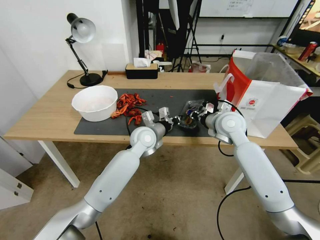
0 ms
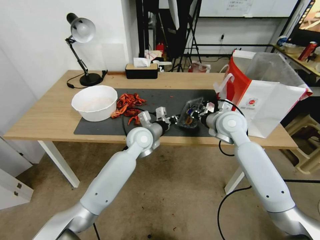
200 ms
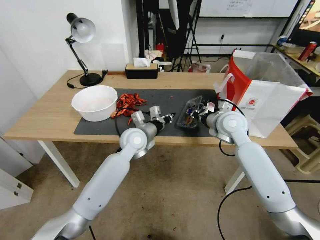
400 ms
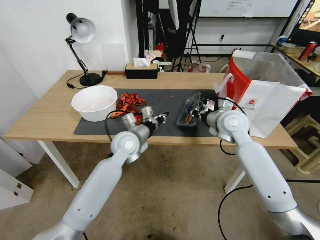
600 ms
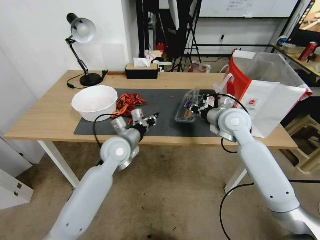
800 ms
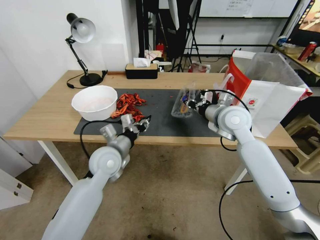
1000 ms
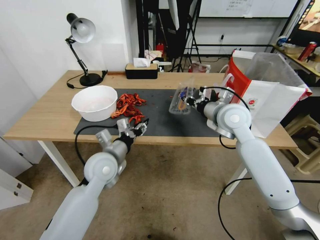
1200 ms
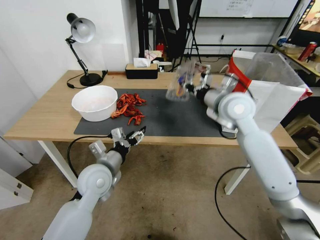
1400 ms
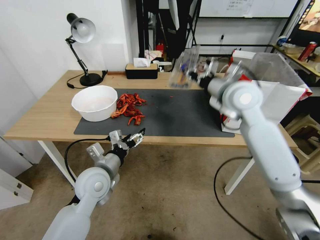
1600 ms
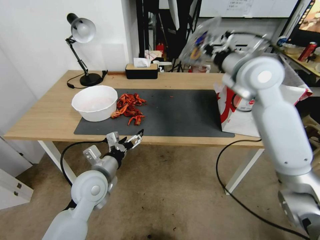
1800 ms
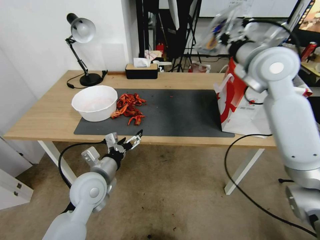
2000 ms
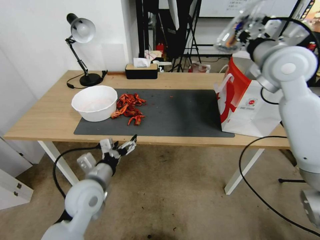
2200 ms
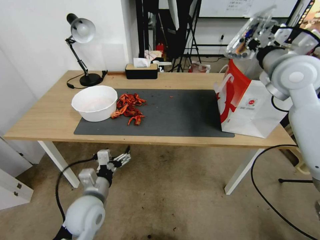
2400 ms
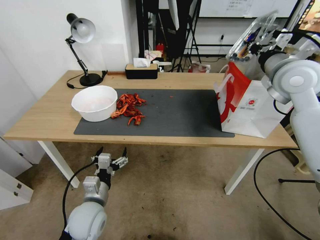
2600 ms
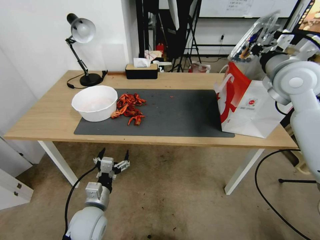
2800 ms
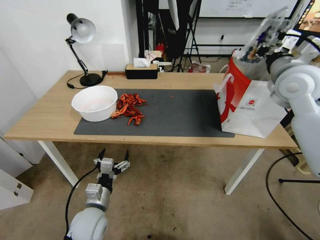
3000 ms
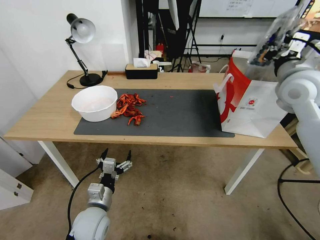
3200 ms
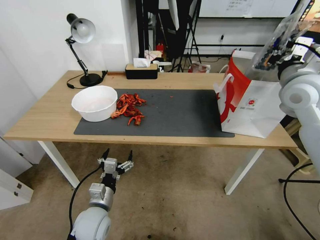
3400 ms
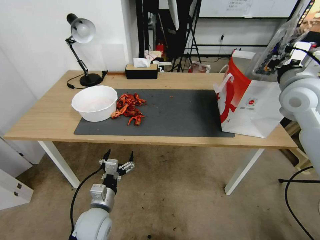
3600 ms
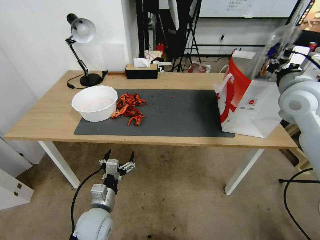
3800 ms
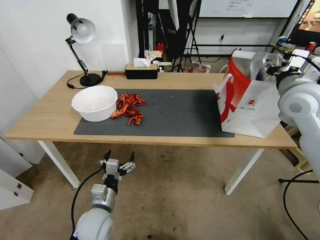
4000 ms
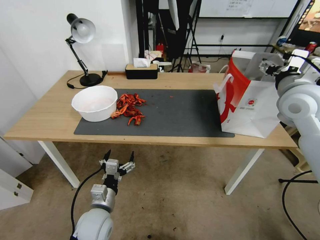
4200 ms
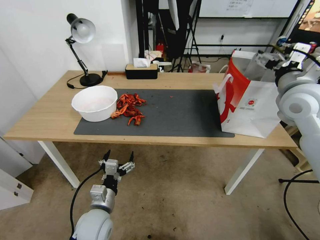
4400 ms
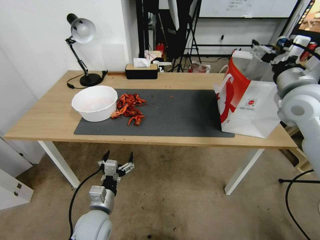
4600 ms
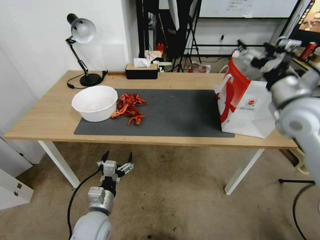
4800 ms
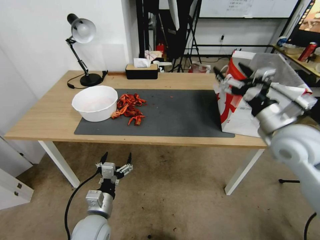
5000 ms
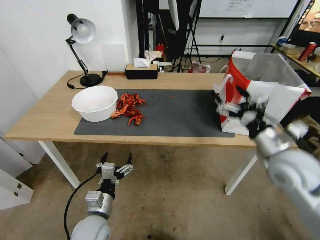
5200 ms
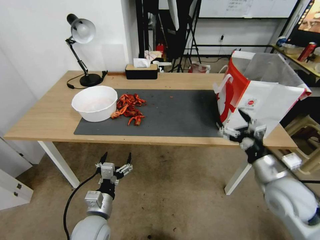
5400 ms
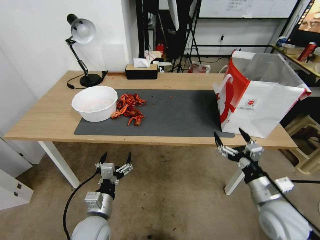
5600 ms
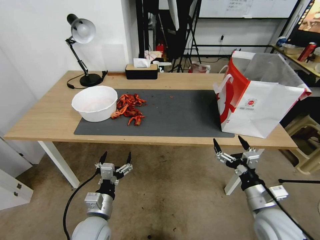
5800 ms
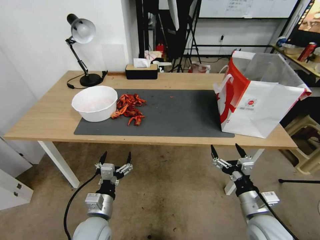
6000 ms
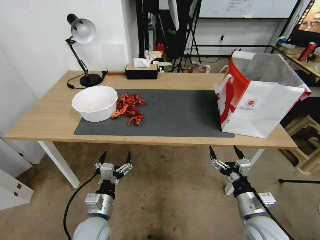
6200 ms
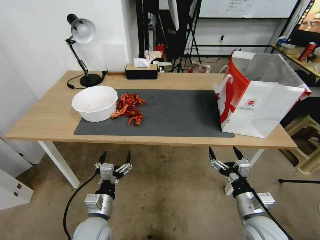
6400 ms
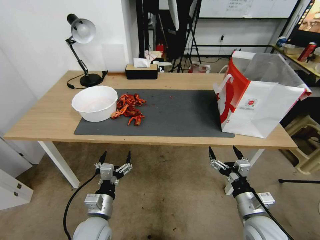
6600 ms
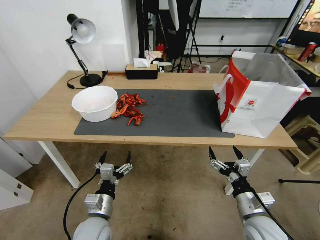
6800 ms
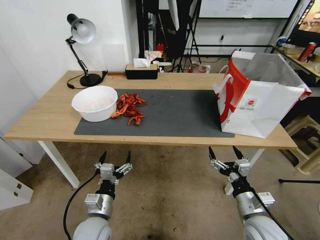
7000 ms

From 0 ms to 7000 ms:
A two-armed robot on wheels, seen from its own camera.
Task of the whole recording: Close the takeout container lid, then place the container into the takeout bag.
From 0 ms to 1400 ms: The right gripper heads upward, covering some 10 cm. Meanwhile the left gripper is displaced backward and to the left by approximately 20 cm, and opens.
From 1400 ms to 2800 ms: The left gripper is displaced downward and backward by roughly 15 cm, and opens its fingers. The right gripper goes some 15 cm to the right and upward.
From 2800 ms to 4200 ms: The right gripper moves approximately 5 cm, and opens.
From 4200 ms to 5600 ms: The right gripper goes about 30 cm downward and backward.
From 5600 ms to 7000 ms: The right gripper travels downward by about 5 cm.

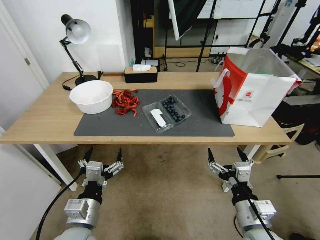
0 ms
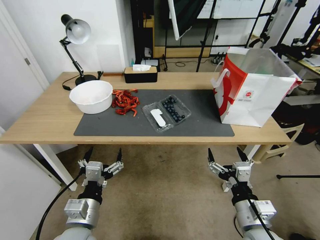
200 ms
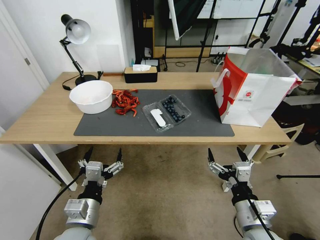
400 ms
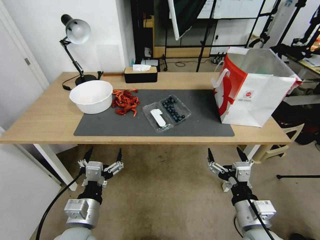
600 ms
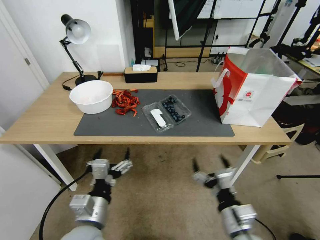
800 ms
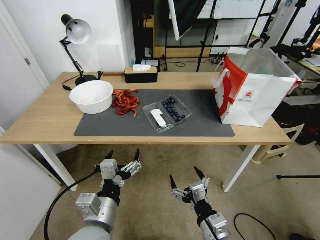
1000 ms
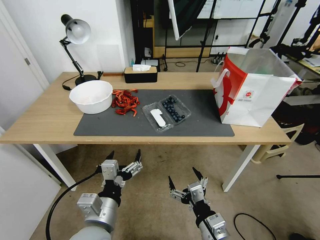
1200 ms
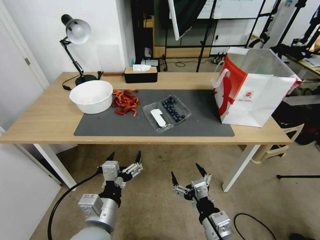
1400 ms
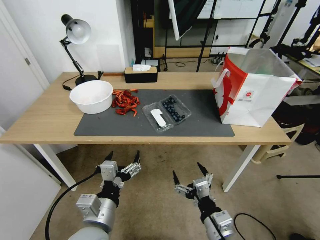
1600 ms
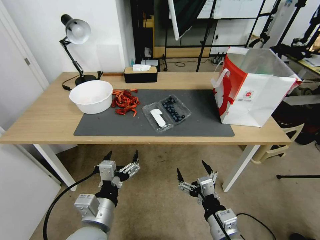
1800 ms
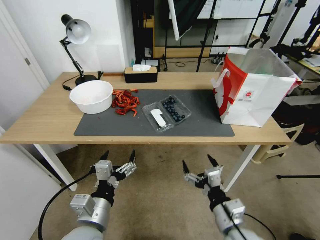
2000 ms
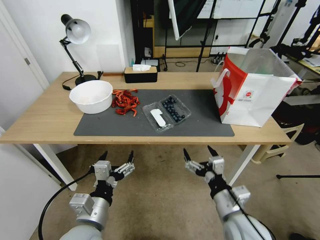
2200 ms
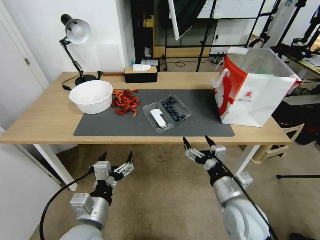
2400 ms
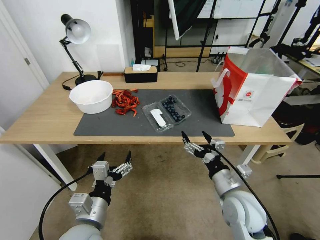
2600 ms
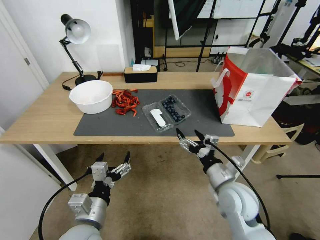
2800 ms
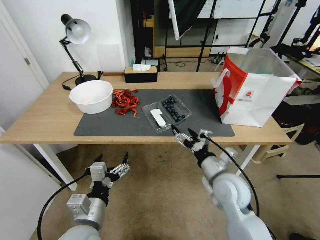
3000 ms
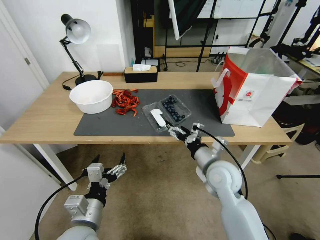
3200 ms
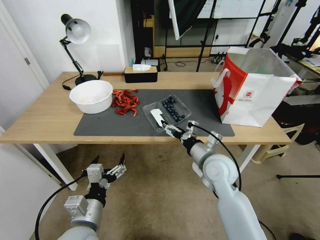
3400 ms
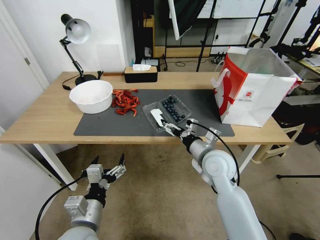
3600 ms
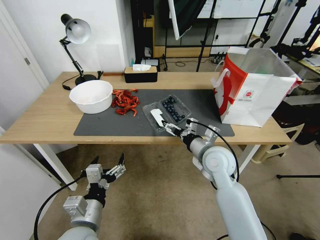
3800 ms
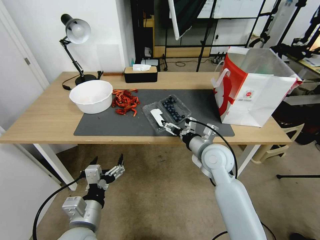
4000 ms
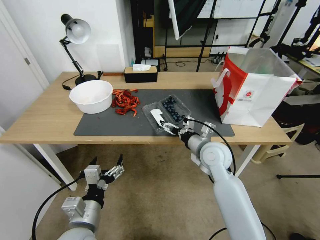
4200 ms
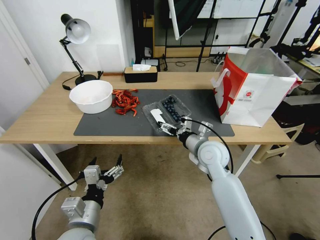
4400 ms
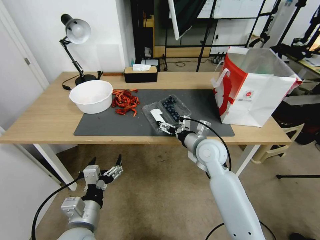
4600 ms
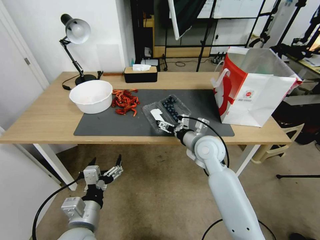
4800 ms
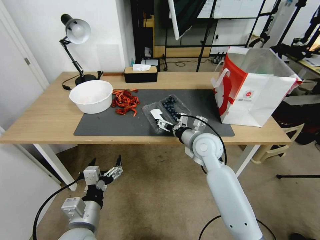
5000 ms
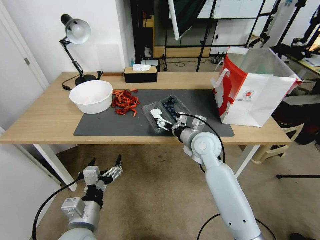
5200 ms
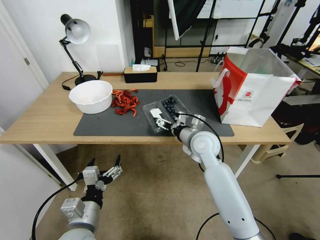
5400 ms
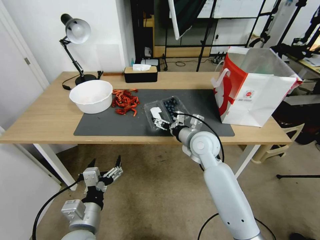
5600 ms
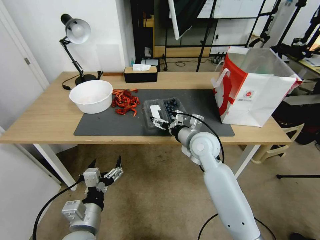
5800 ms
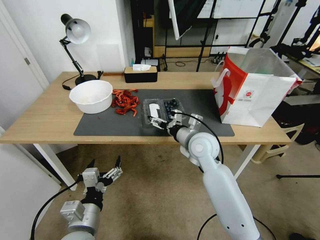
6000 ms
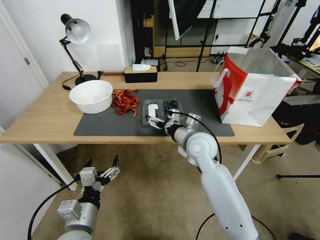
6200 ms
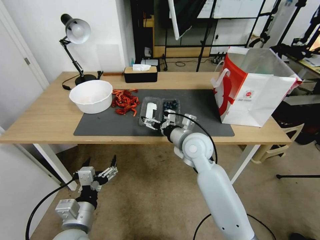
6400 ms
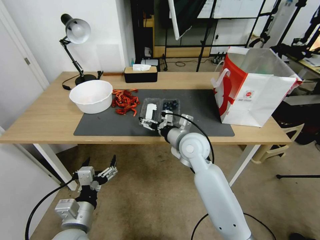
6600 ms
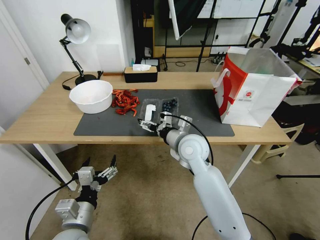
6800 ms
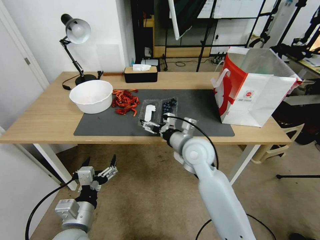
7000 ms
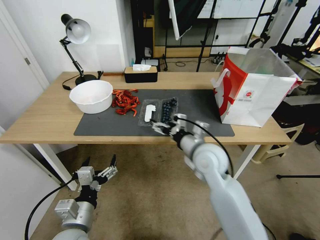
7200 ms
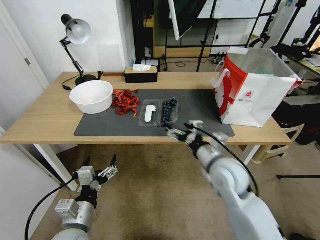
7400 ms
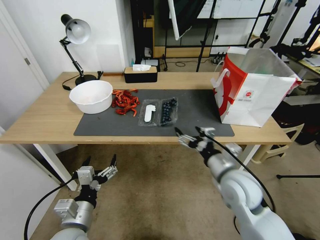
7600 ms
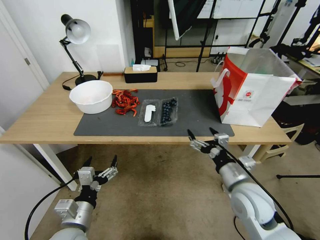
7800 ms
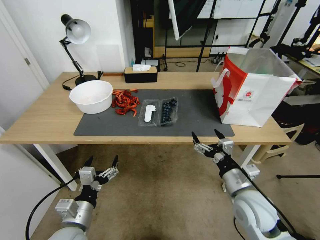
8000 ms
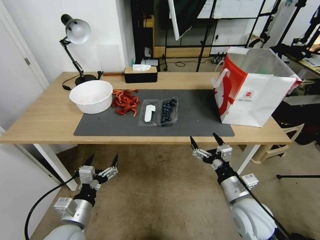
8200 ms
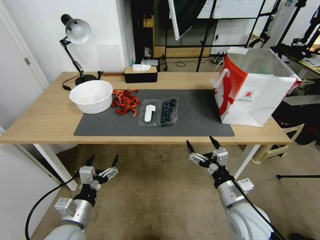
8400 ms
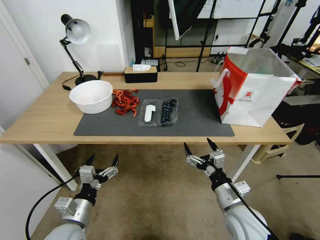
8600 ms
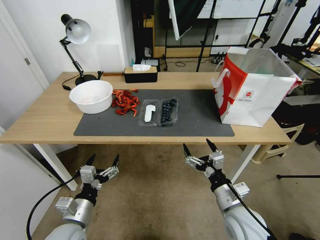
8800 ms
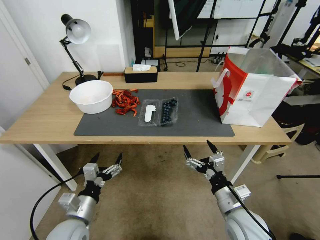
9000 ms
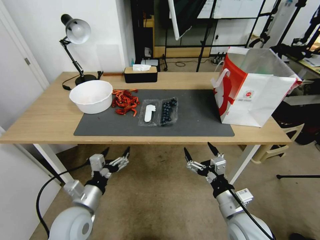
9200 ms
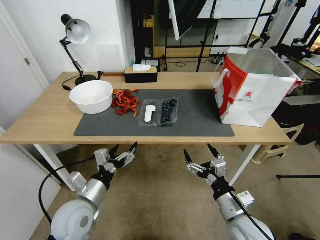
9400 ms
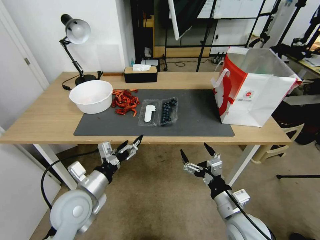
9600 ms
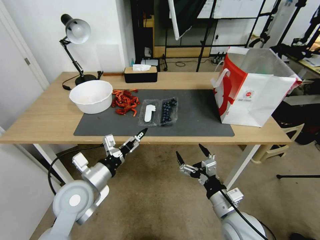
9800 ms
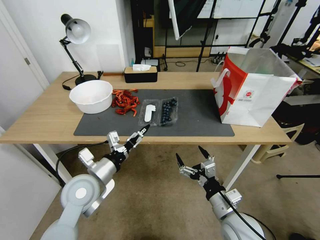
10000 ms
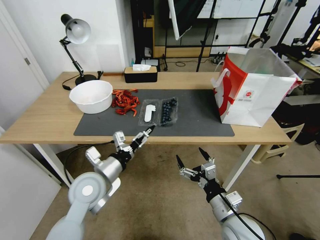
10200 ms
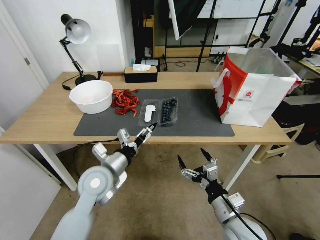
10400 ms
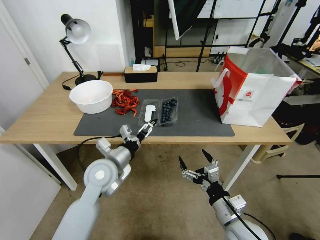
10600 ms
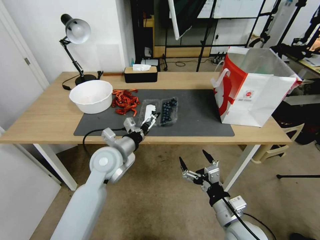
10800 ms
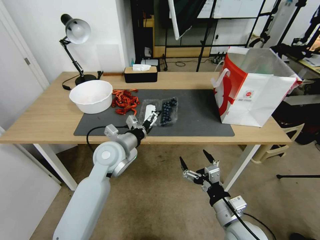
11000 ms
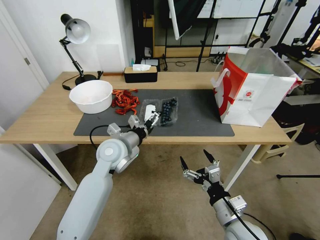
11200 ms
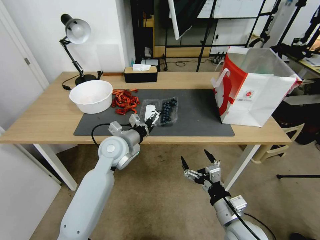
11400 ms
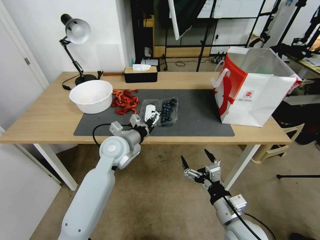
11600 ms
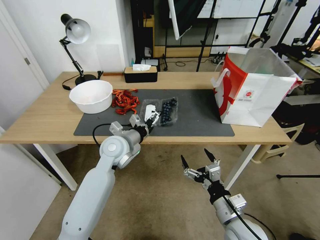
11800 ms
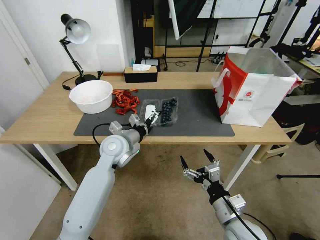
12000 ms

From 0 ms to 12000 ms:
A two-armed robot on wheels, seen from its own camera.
Task of the whole recording: Close the takeout container lid, then place the container into the takeout bag.
From 1600 ms to 3000 ms: The right gripper goes some 15 cm forward.
From 3000 ms to 4400 ms: The right gripper shifts roughly 10 cm forward.
From 4400 ms to 6000 ms: The grippers make only small movements.
From 6000 ms to 7600 ms: The right gripper moves backward and to the right, about 15 cm.
From 7600 ms to 9000 ms: The right gripper goes about 10 cm backward and downward.
From 9000 ms to 10400 ms: The left gripper goes some 15 cm forward, upward and to the right.
From 10400 ms to 12000 ms: The left gripper travels forward by roughly 10 cm.

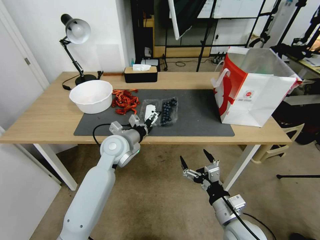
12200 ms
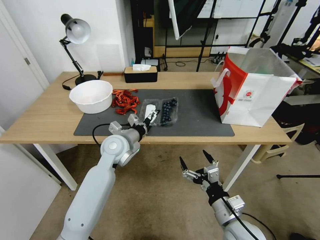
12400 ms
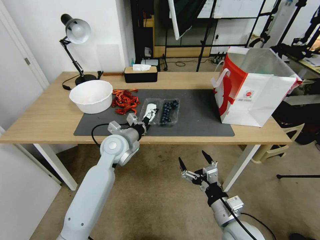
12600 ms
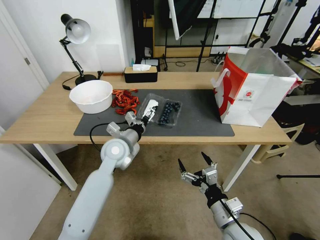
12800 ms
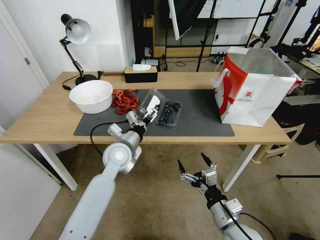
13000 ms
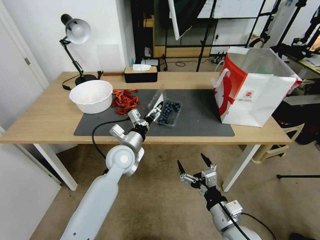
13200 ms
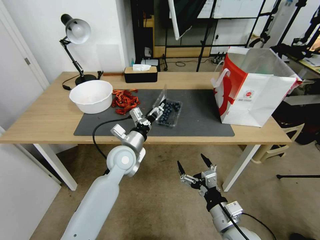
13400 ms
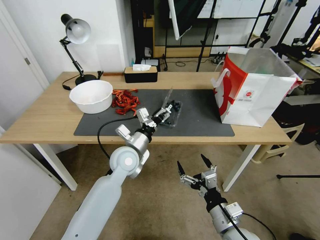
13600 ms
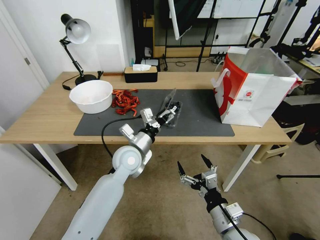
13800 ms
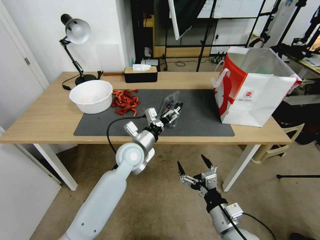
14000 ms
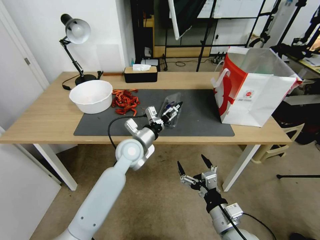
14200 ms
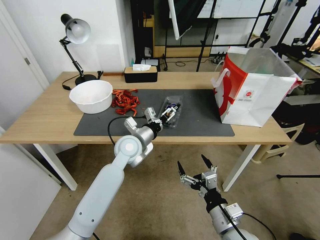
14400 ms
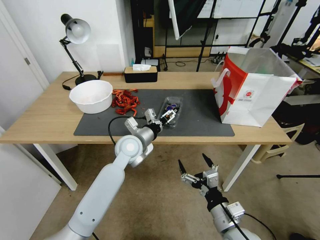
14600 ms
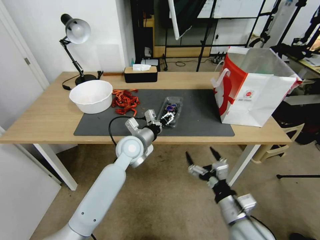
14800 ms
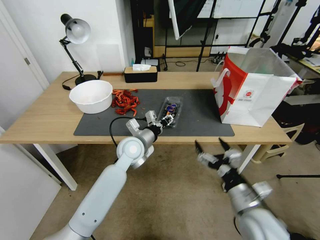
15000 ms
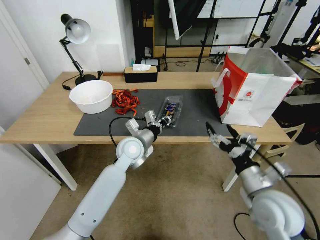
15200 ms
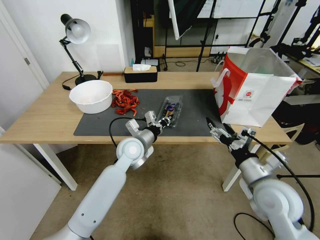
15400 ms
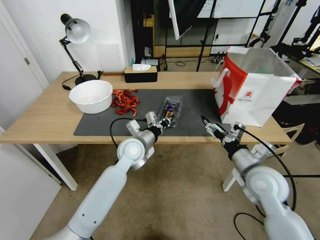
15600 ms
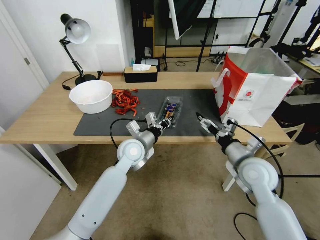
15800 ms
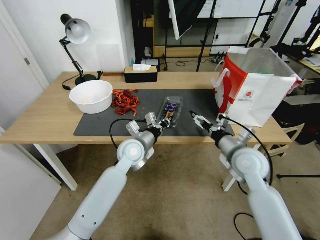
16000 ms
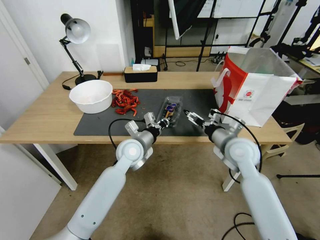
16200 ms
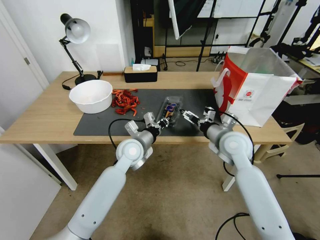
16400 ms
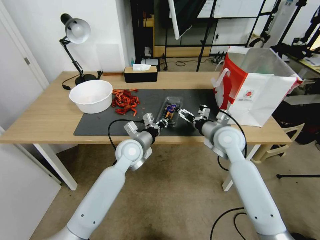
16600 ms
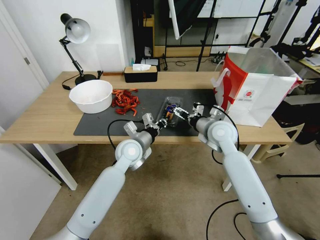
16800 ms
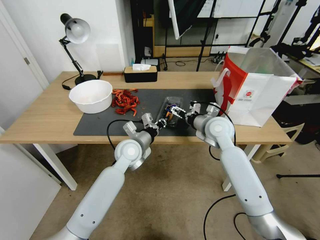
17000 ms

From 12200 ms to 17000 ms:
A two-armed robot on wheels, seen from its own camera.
Task of the whole recording: Close the takeout container lid, then place the container into the takeout bag.
From 12200 ms to 13800 ms: The left gripper shifts by approximately 5 cm.
From 13800 ms to 15400 ms: The right gripper travels upward, forward and to the right by approximately 15 cm. The left gripper closes its fingers.
From 15400 ms to 17000 ms: The right gripper moves forward and to the left, approximately 20 cm.
